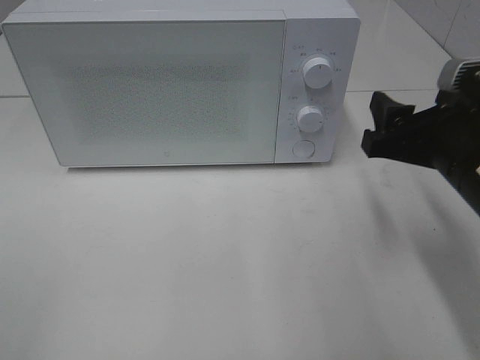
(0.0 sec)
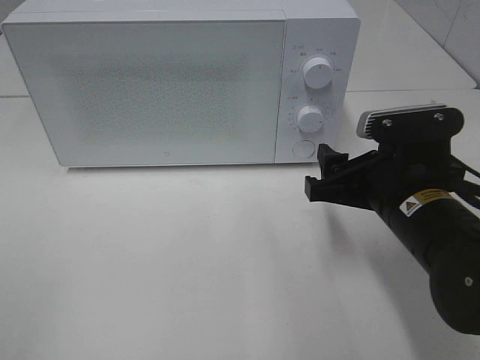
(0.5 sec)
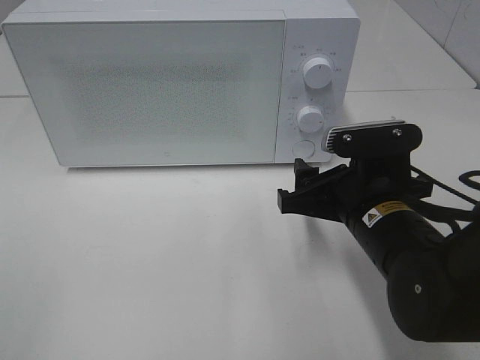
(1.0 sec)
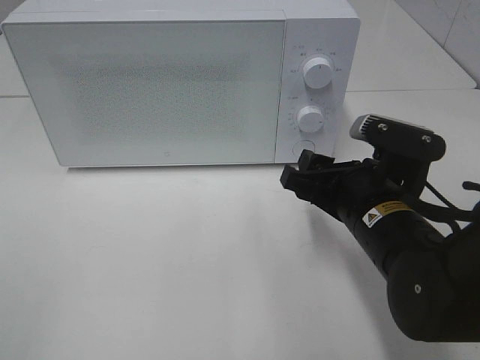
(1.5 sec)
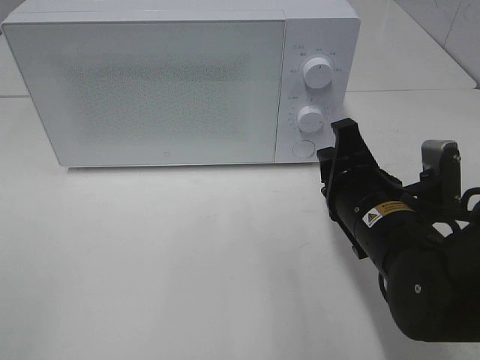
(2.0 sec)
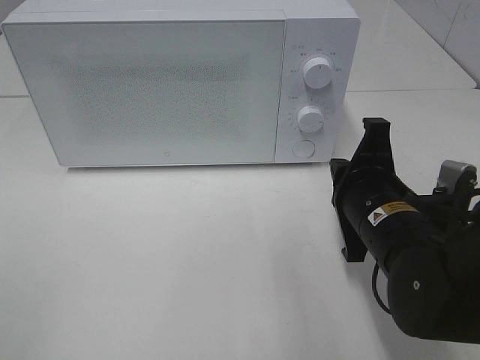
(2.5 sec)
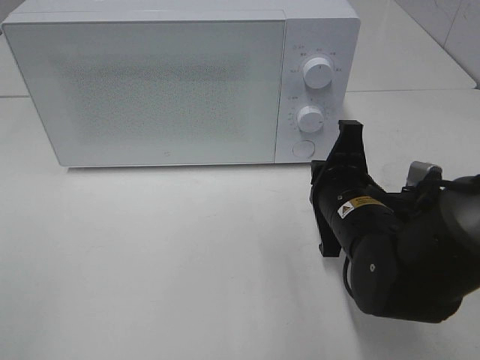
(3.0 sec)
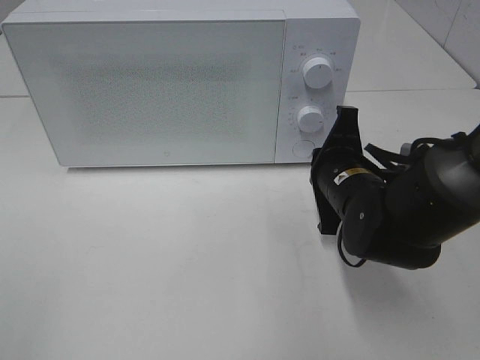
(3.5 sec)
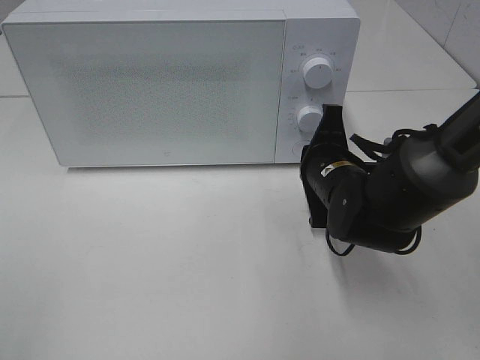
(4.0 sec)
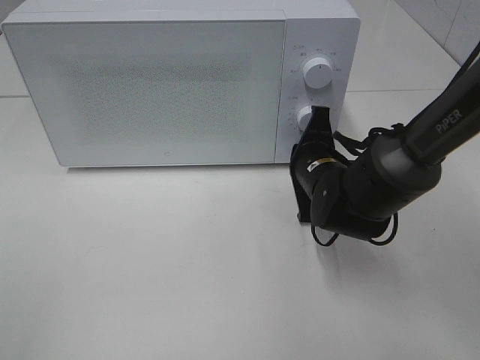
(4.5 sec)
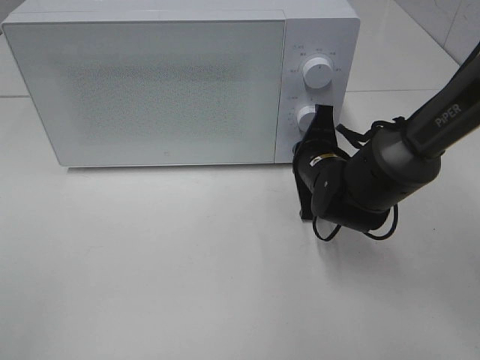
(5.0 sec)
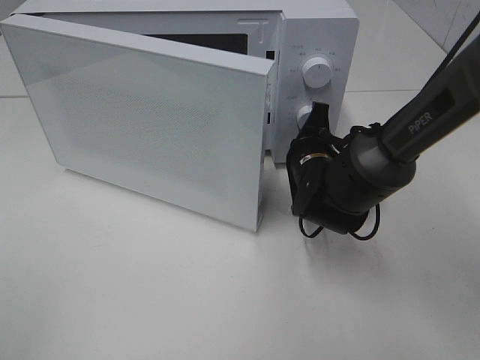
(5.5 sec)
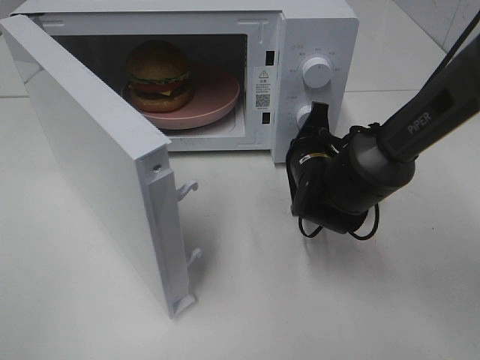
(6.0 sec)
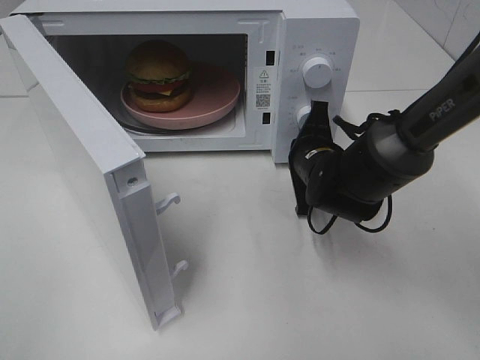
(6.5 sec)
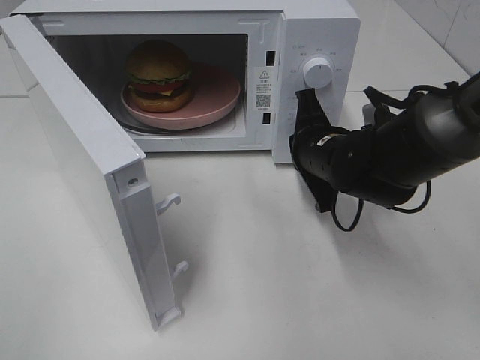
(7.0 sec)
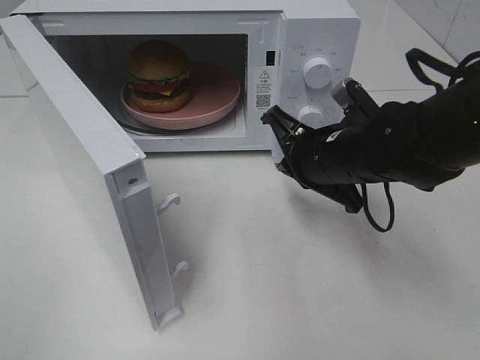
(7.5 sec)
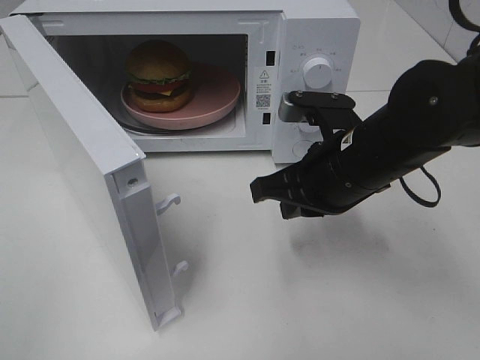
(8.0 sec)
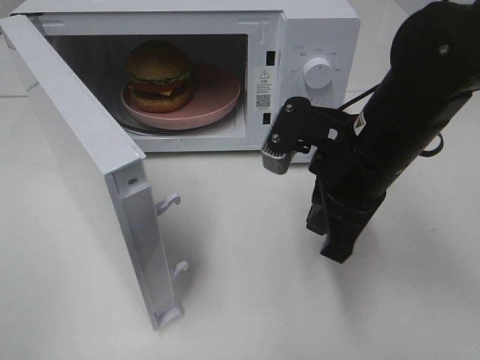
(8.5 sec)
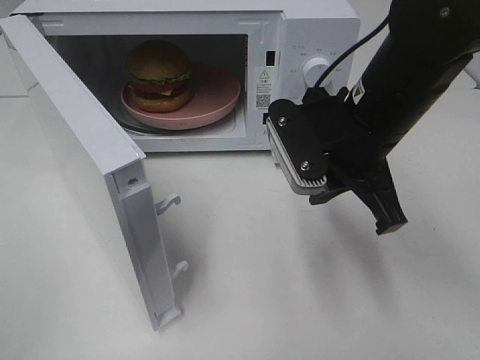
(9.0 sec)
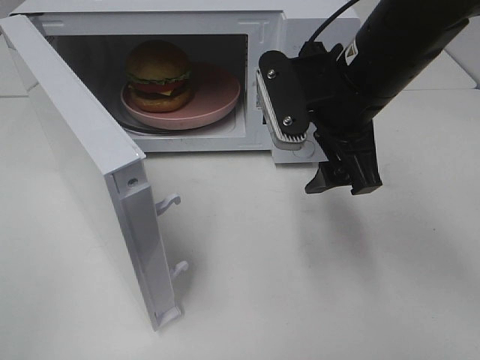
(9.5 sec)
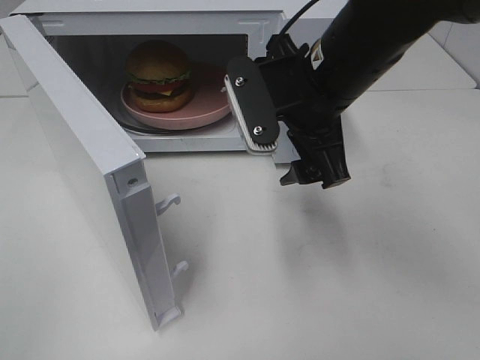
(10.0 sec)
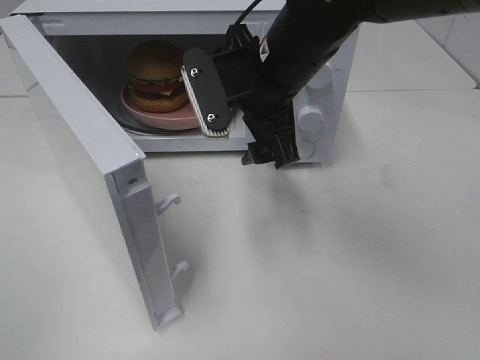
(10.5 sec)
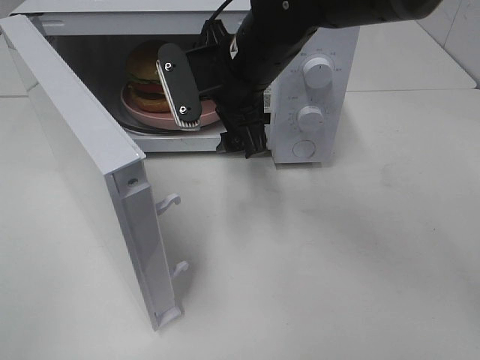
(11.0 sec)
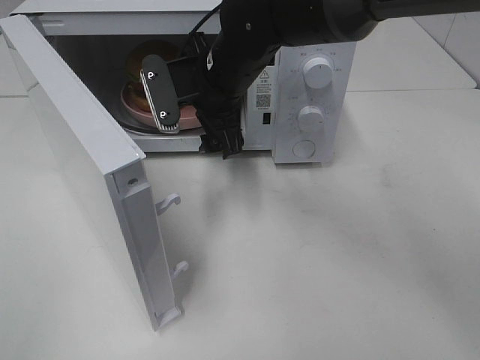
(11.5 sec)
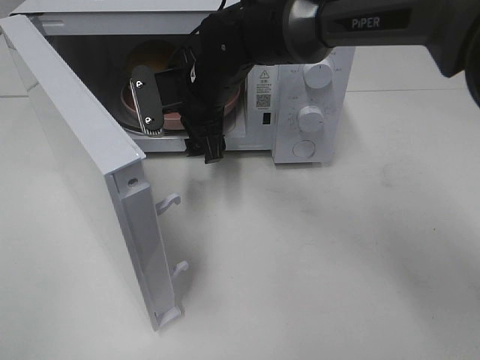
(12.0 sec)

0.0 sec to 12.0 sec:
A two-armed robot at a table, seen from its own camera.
Task of the whole recording: Heat the burger.
Step, 0.0 sec to 7.0 sec: Right hand: press the switch.
0.0 sec to 2.0 sec: The right gripper travels to the left and downward by approximately 10 cm, and closes its fingers.
2.0 sec to 4.0 sec: The right gripper heads forward, covering some 10 cm, and closes up.
4.0 sec to 6.0 sec: The right gripper ends up about 5 cm from where it was.
6.0 sec to 8.0 sec: The right gripper shifts roughly 15 cm backward and upward.
8.0 sec to 10.0 sec: The right gripper shifts approximately 5 cm upward, and opens up.
10.0 sec to 12.0 sec: The right gripper moves forward, to the left and downward, about 15 cm.

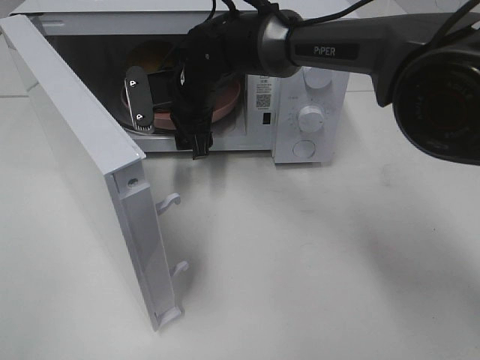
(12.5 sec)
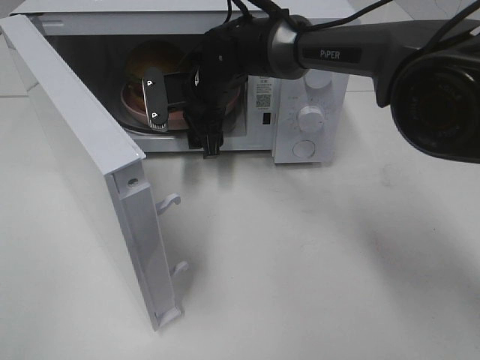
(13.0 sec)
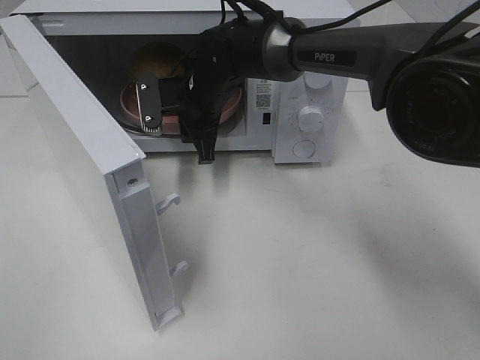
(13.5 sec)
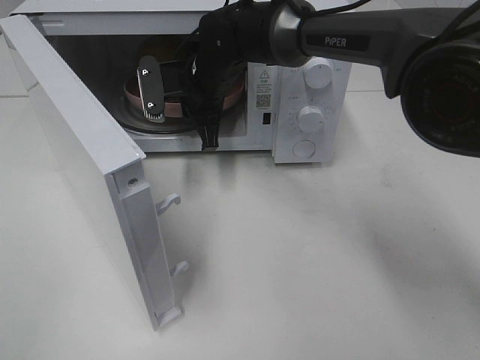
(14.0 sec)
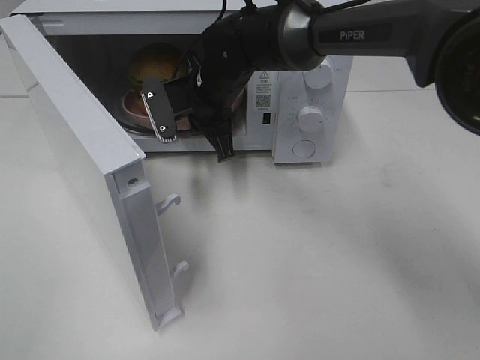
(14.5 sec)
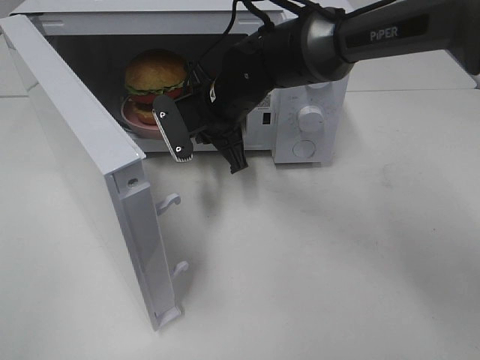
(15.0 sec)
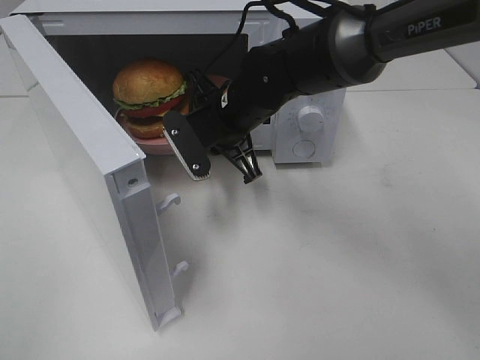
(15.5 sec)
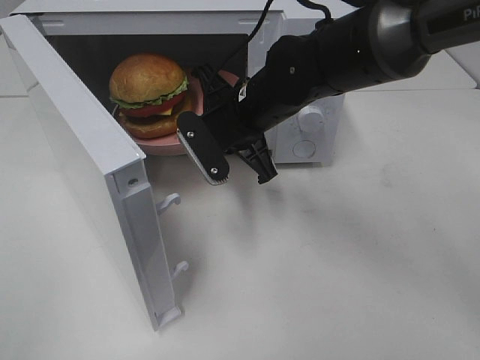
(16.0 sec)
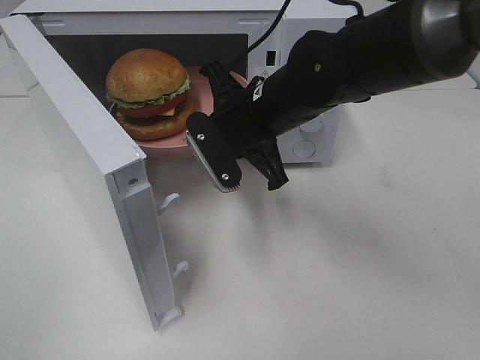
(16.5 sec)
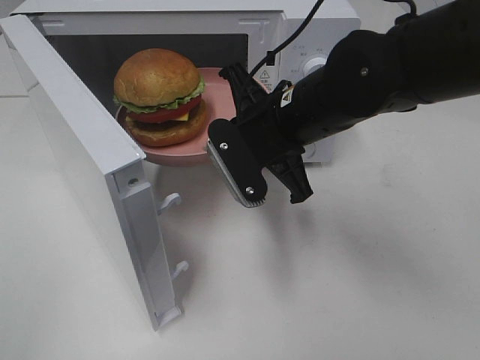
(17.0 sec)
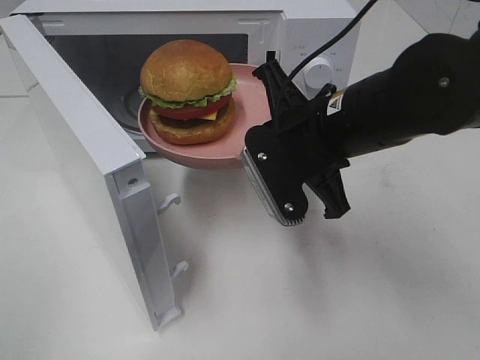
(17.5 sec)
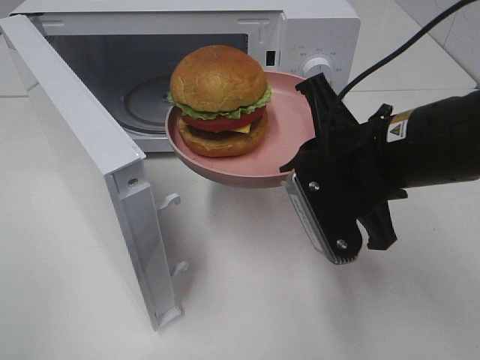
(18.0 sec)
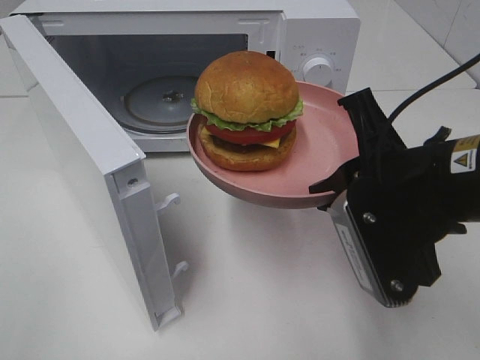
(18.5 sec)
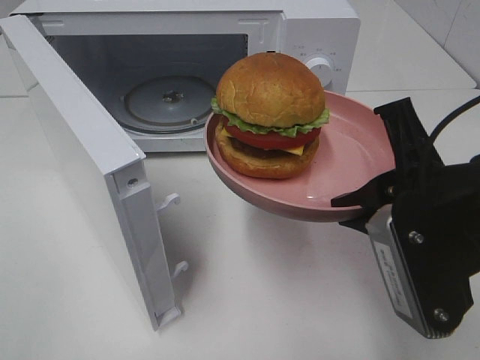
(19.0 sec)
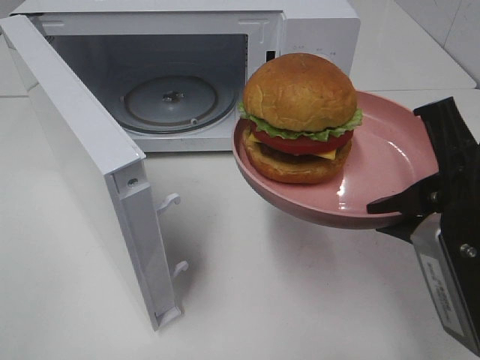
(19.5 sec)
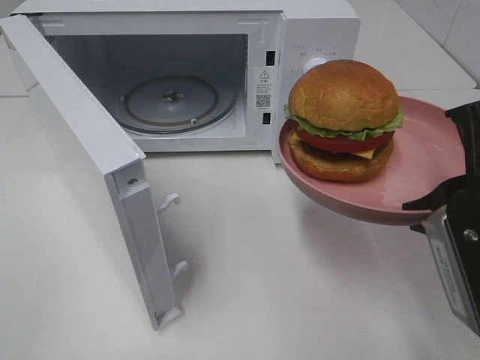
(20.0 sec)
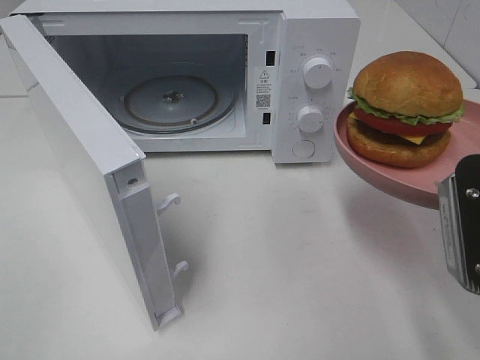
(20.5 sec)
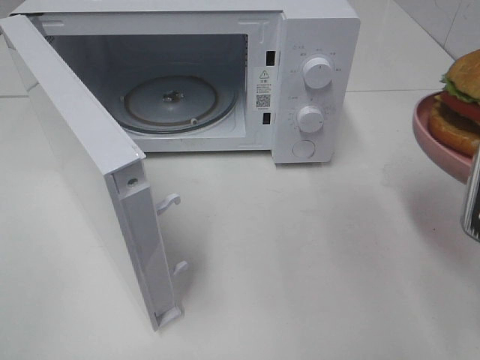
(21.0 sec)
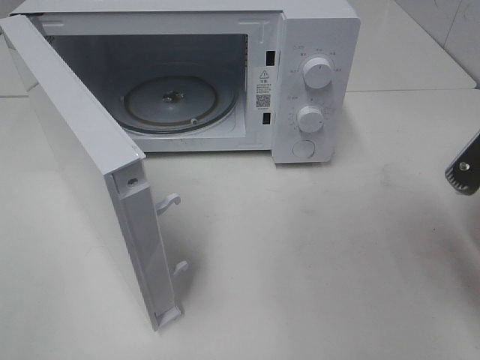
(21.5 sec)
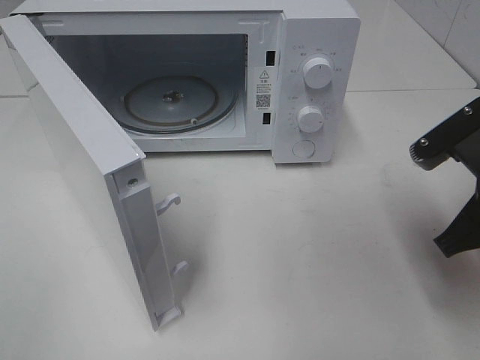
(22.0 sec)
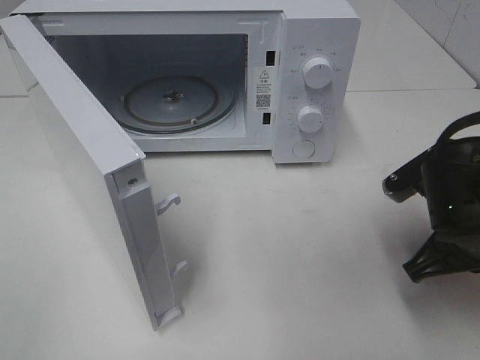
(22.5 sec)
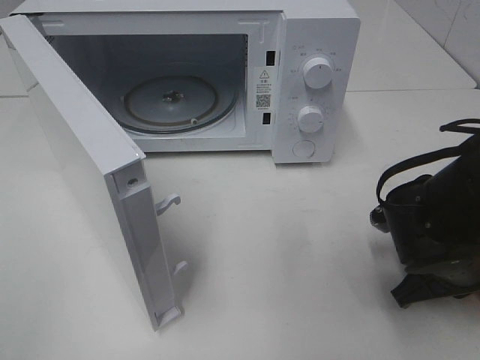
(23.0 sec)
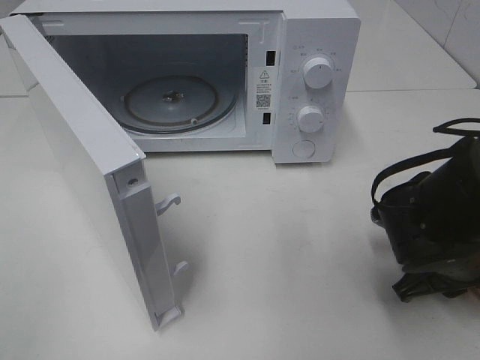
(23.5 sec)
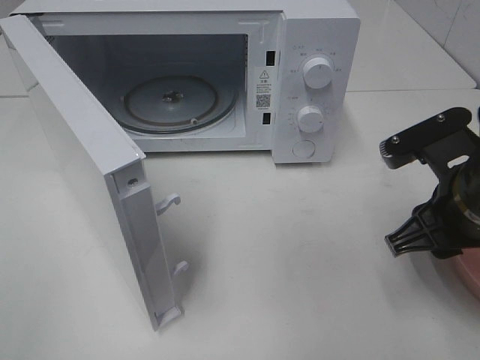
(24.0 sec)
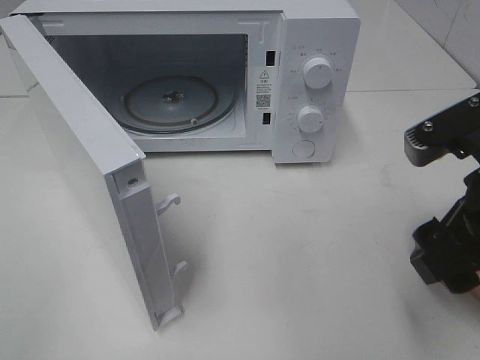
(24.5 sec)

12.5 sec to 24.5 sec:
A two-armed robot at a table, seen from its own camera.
Task of the whole recording: Heat the burger.
Step, 14.5 sec to 24.0 sec: Right hand: place the plate on the table.
12.5 sec to 14.5 sec: The right gripper closes up.
14.5 sec to 16.5 sec: The right gripper goes some 10 cm backward and to the right.
16.5 sec to 18.5 sec: The right gripper goes some 20 cm backward and to the right.
18.5 sec to 20.5 sec: The right gripper heads to the right, covering some 5 cm.
20.5 sec to 22.5 sec: The right gripper goes roughly 10 cm downward and forward.
22.5 sec to 24.5 sec: The right gripper travels upward and backward by roughly 10 cm, and opens.

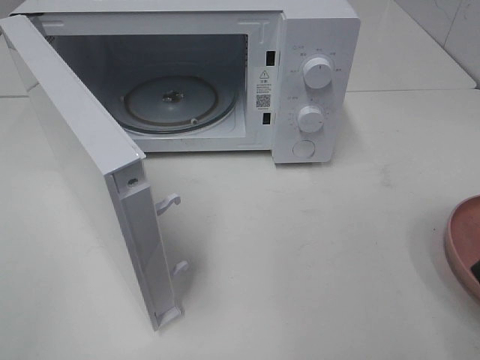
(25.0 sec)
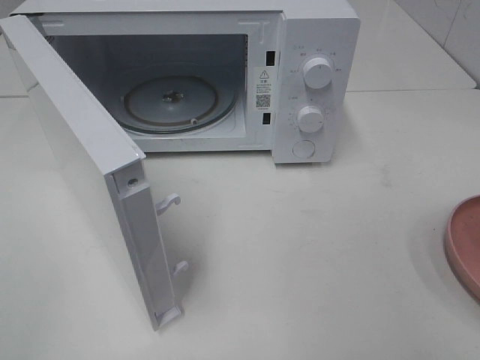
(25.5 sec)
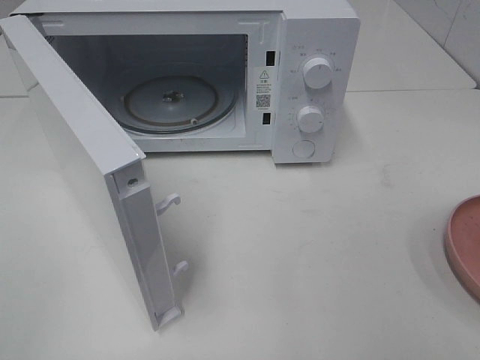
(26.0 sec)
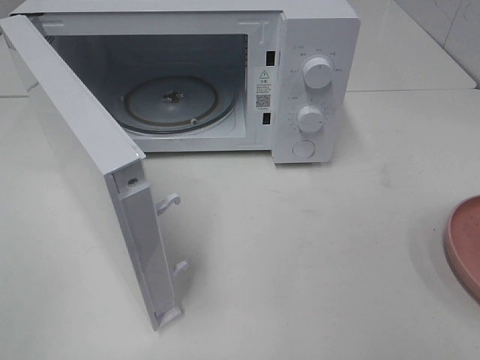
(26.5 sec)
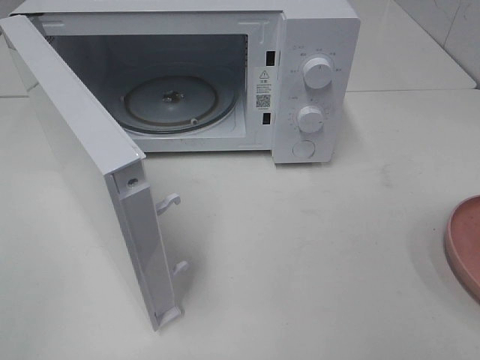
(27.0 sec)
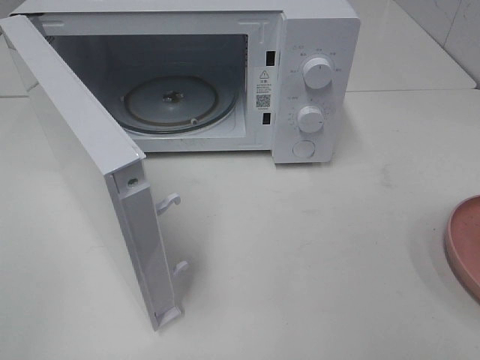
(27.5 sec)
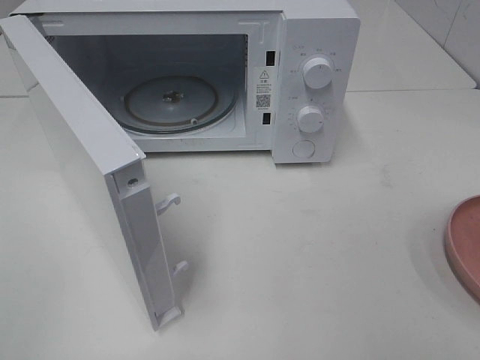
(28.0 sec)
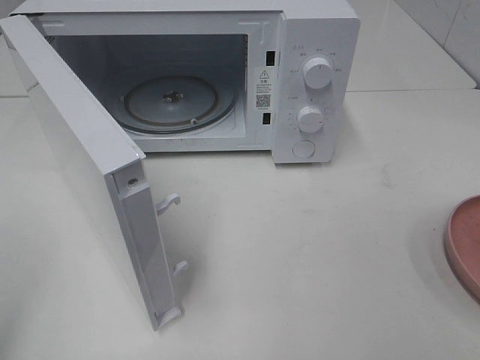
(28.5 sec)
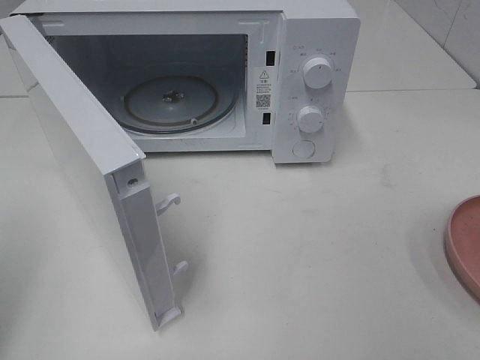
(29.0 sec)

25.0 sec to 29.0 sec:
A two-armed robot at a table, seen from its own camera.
Task of the whole recording: Heat the burger.
25.0 sec to 27.0 sec: The right gripper is displaced backward and to the right by about 15 cm.
